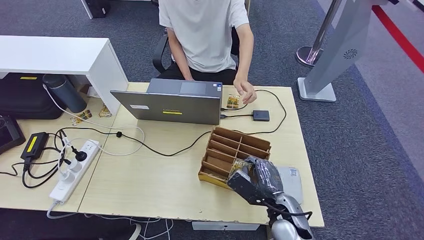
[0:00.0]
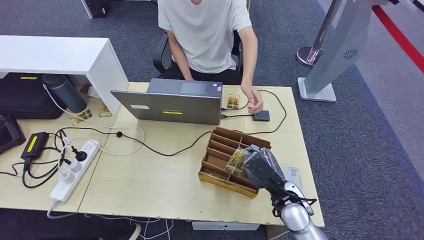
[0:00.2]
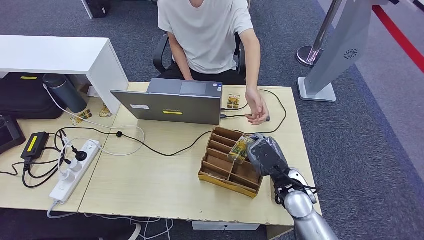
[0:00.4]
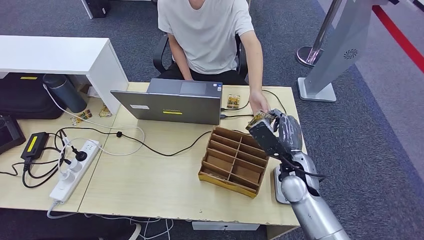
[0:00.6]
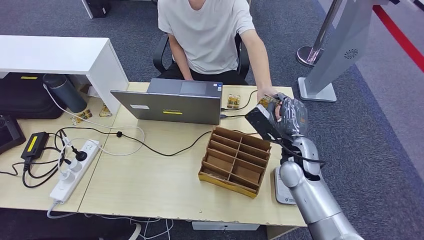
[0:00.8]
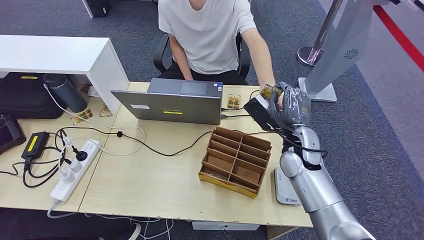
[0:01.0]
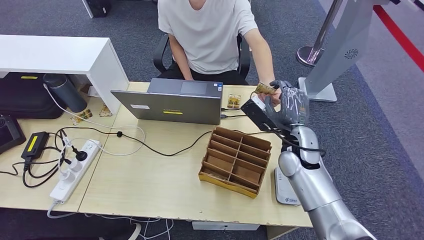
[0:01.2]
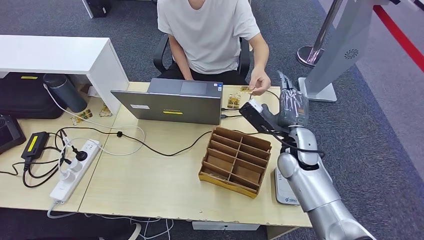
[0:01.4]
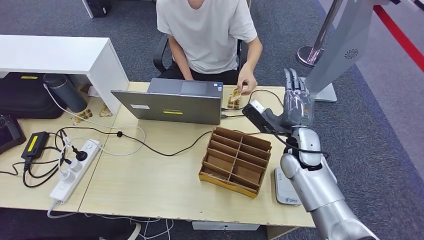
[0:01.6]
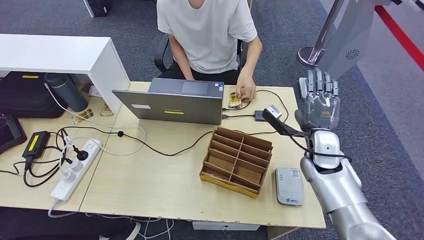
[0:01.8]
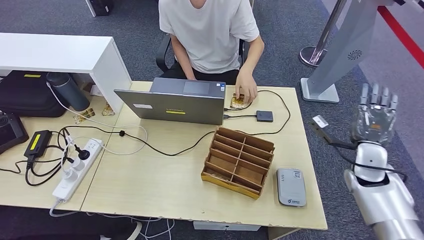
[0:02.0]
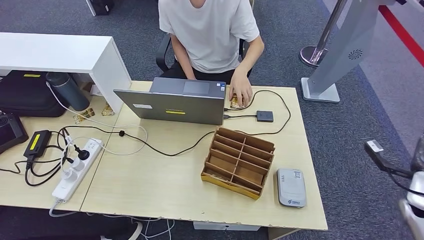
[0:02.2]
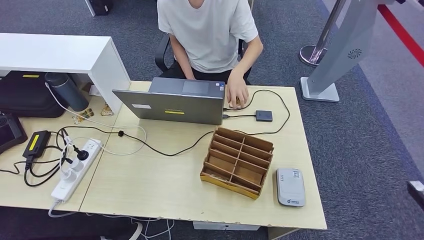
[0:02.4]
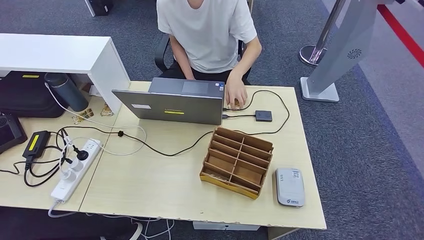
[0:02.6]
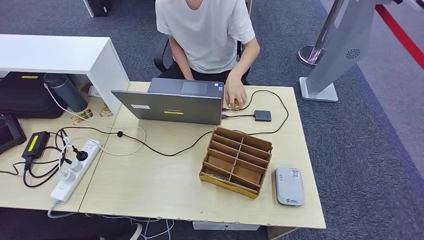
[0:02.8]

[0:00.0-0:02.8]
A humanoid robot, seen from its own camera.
Step, 0:00.0 to 0:02.8: Hand the room key to the person.
0:00.0 to 0:01.4: The right hand travels forward and upward by roughly 15 cm.
0:01.4 to 0:02.8: The right hand is displaced to the right, backward and downward by about 50 cm.
